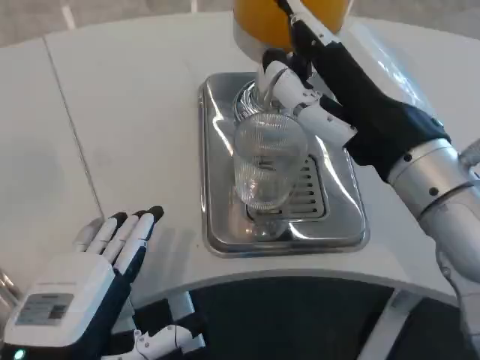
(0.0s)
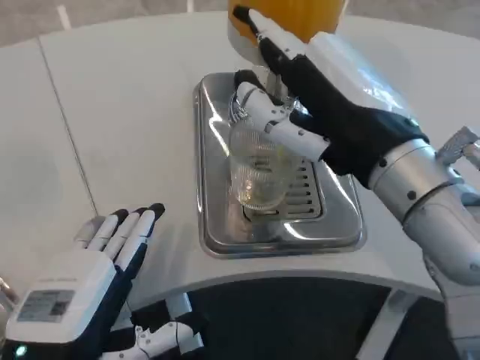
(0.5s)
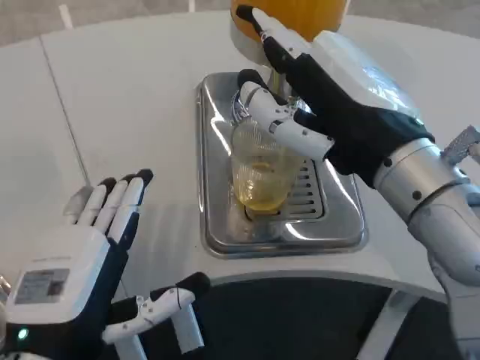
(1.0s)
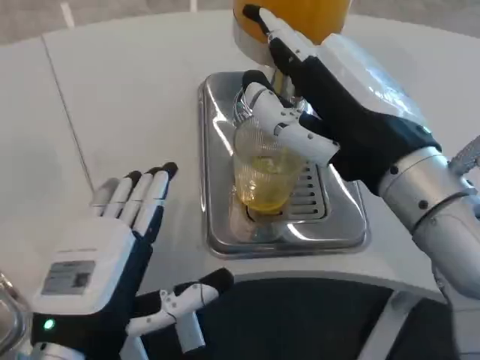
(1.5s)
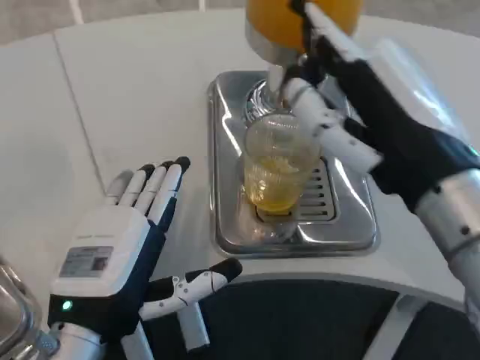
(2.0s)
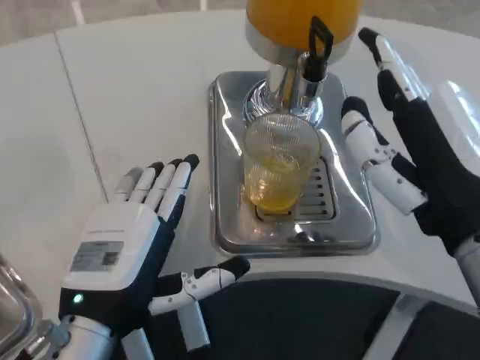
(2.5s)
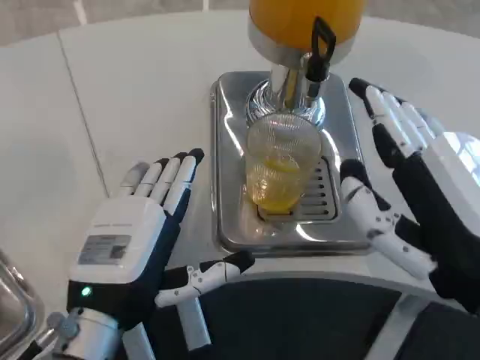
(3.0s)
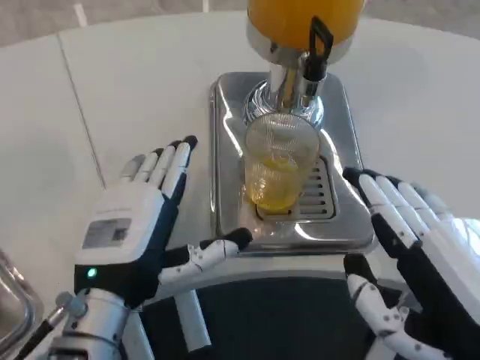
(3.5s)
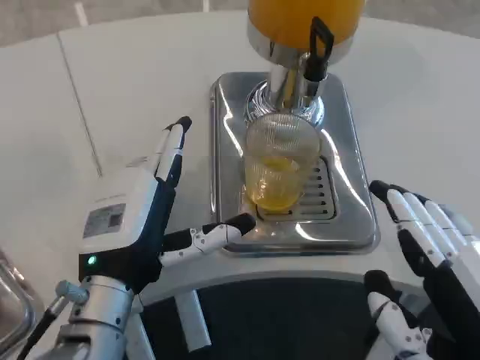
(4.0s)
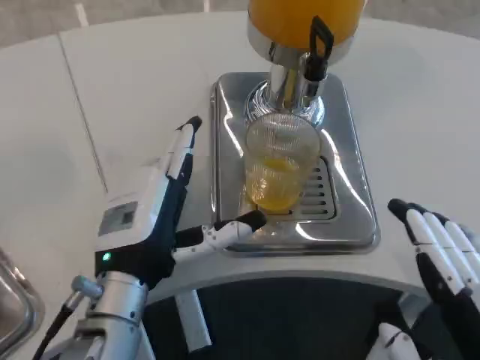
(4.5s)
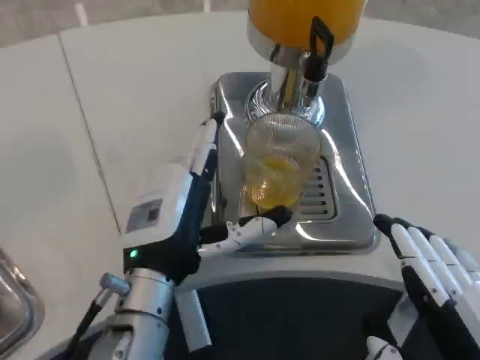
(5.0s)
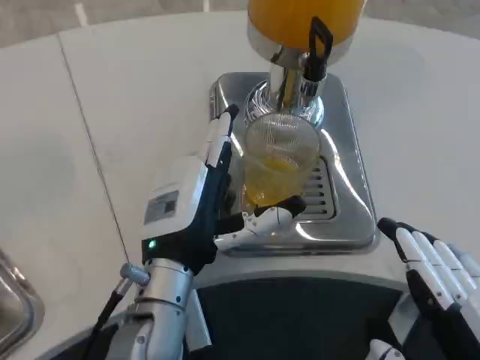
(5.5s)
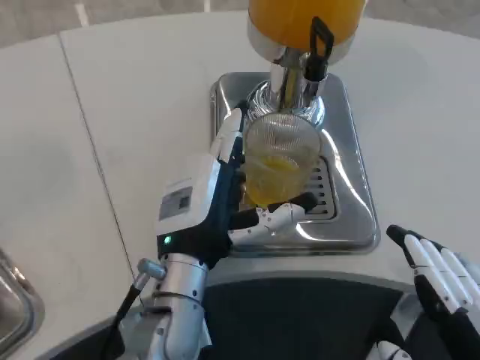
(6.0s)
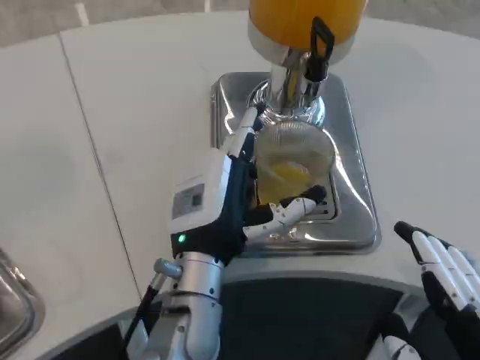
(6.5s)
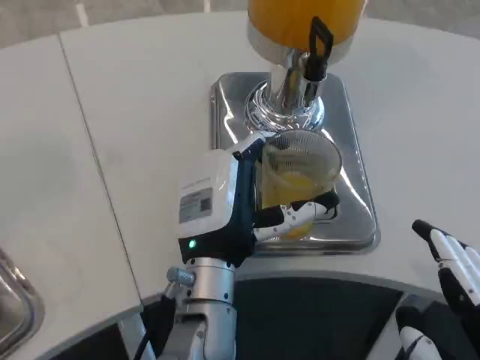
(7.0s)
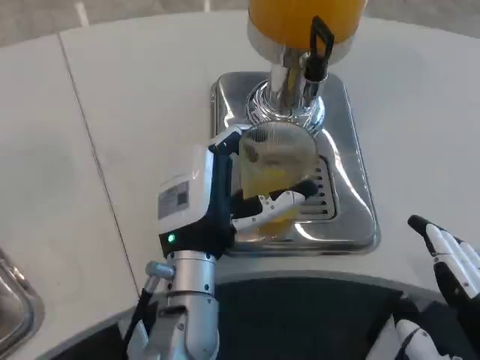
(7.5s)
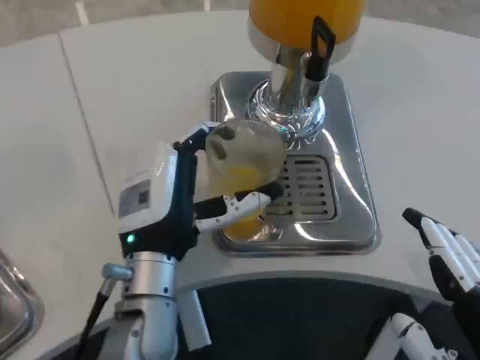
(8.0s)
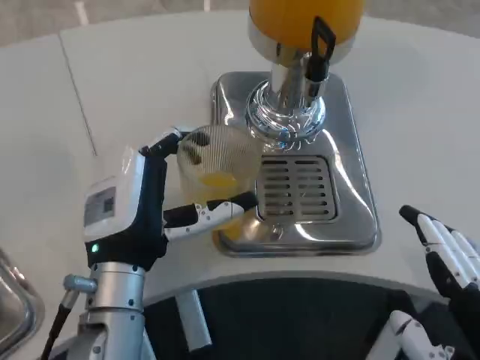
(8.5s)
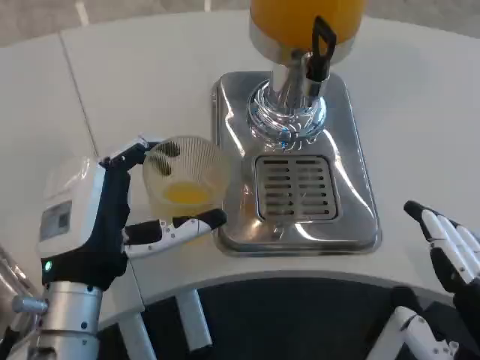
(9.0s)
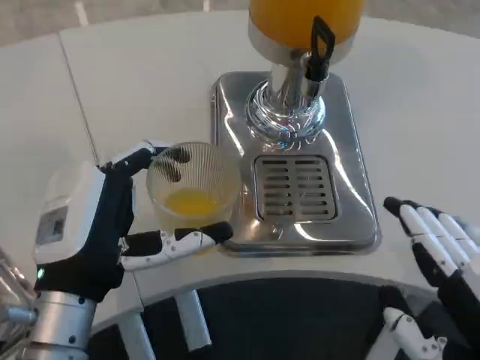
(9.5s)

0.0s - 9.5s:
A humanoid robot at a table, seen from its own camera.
Task of the whole recording: Grasp the cup under the faucet to collect the drink, then remove the cup.
0.0s - 2.0s: The left hand changes place by approximately 5 cm.
2.0s - 4.0s: The left hand changes place by some 5 cm. The right hand goes some 15 cm backward and downward.
4.0s - 5.5s: The left hand travels to the right by roughly 5 cm.
5.5s - 7.5s: There are only small adjustments of the hands.
7.5s - 9.5s: The left hand heads to the left and backward, covering roughly 10 cm.

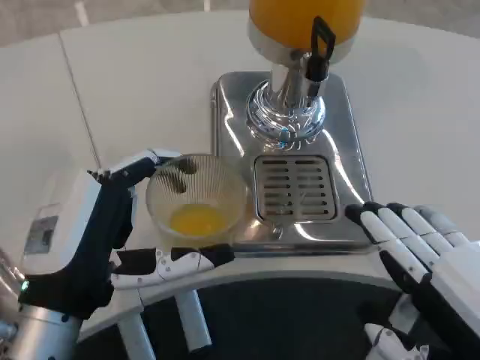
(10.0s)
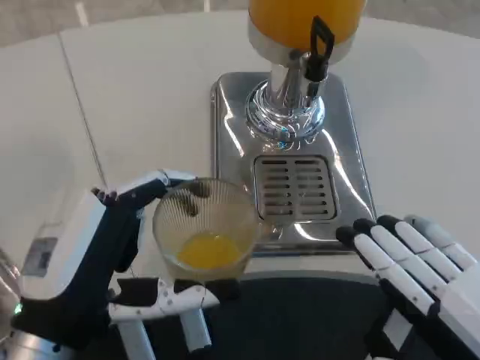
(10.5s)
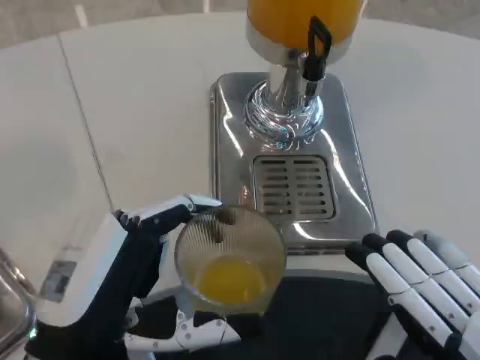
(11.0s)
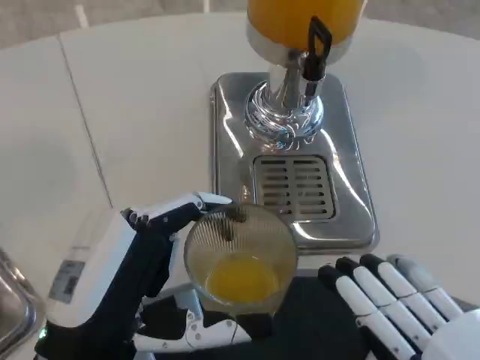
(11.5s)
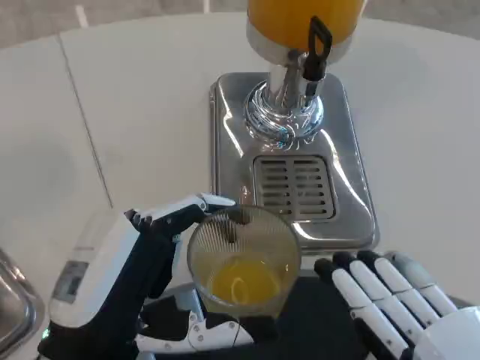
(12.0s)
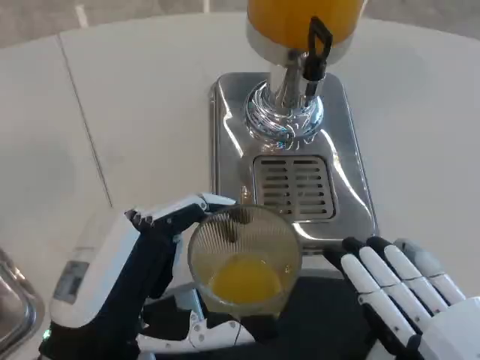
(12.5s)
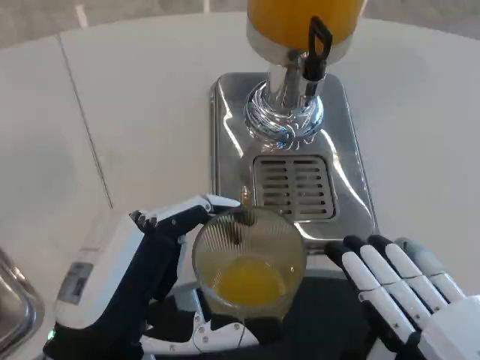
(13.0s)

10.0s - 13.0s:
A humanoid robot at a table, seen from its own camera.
Task of the whole recording: Grasp the cup under the faucet to collect the drink, then remove the cup.
11.5s - 13.0s: The hands move only a little.

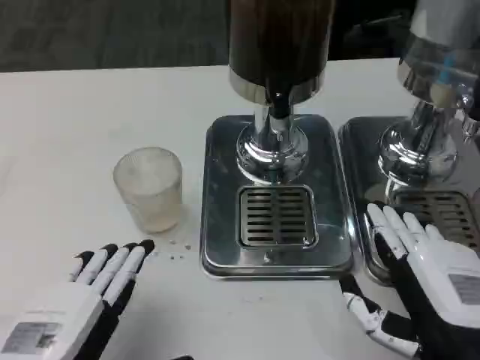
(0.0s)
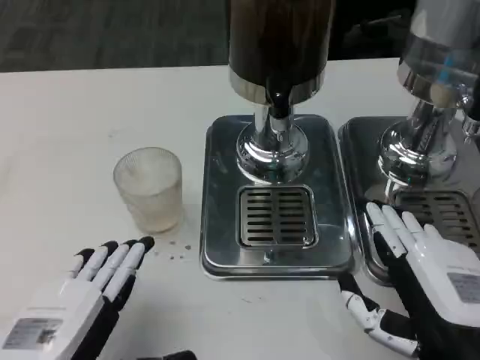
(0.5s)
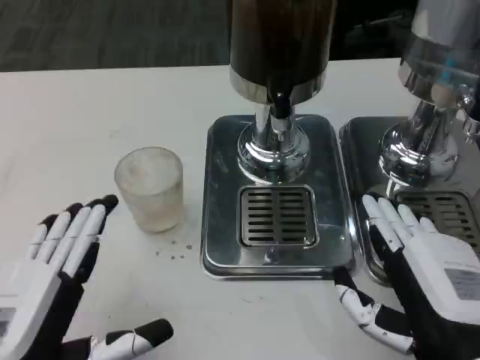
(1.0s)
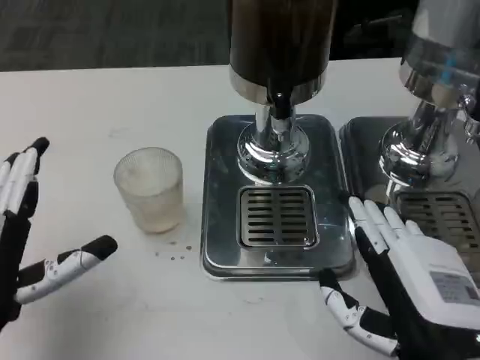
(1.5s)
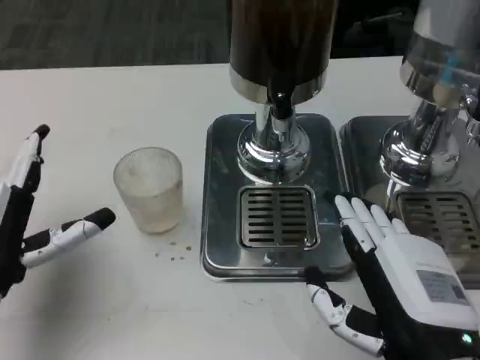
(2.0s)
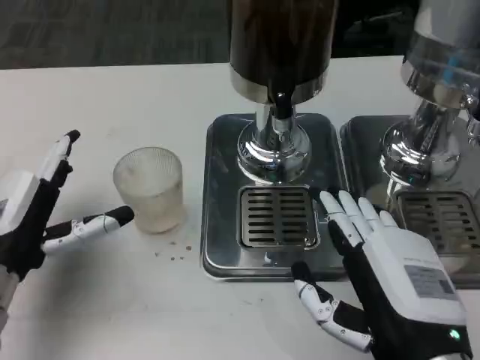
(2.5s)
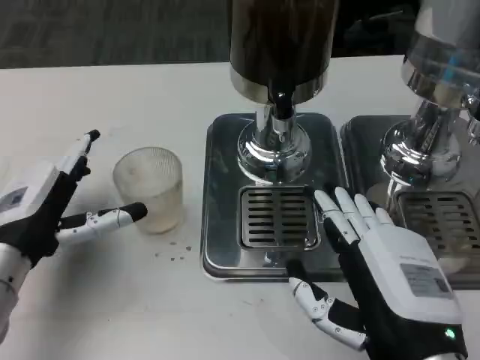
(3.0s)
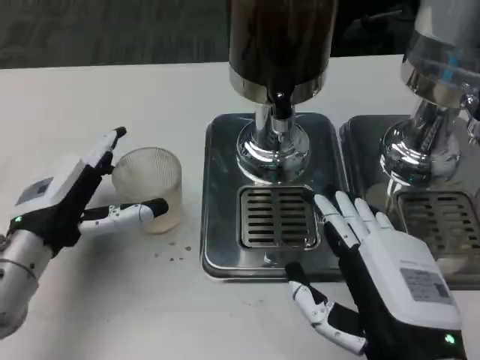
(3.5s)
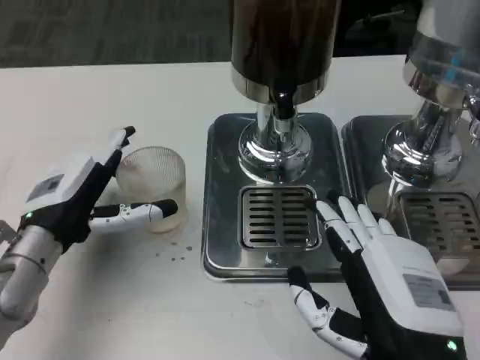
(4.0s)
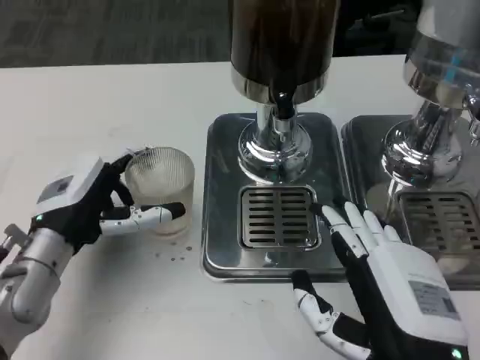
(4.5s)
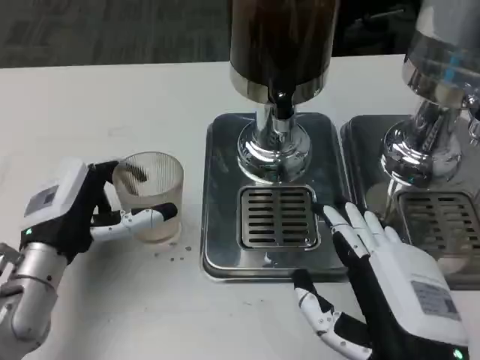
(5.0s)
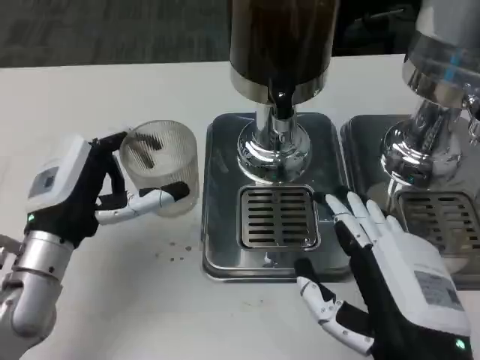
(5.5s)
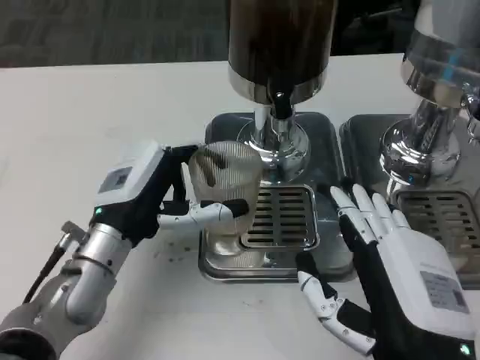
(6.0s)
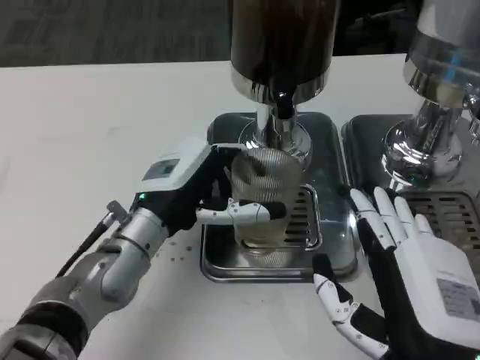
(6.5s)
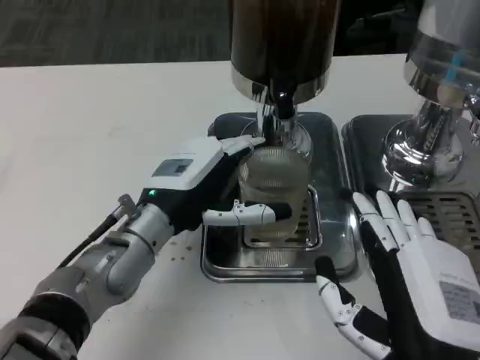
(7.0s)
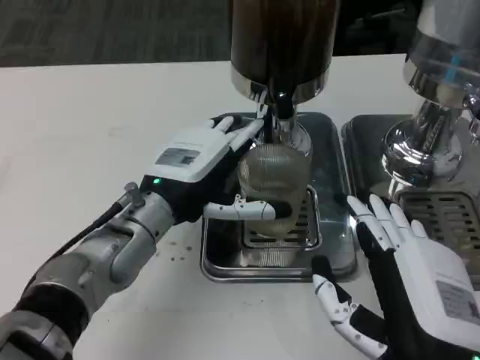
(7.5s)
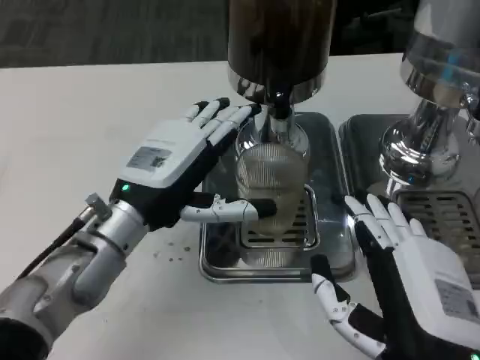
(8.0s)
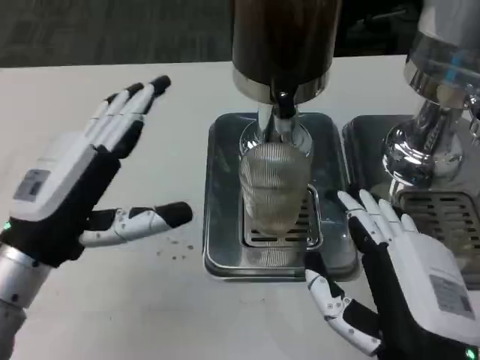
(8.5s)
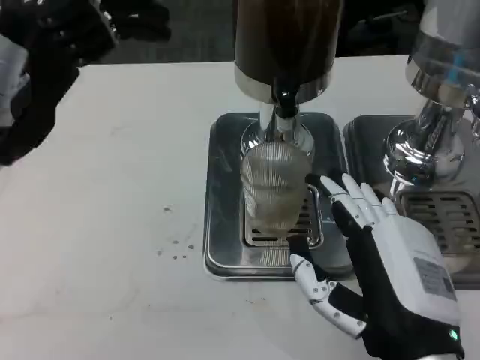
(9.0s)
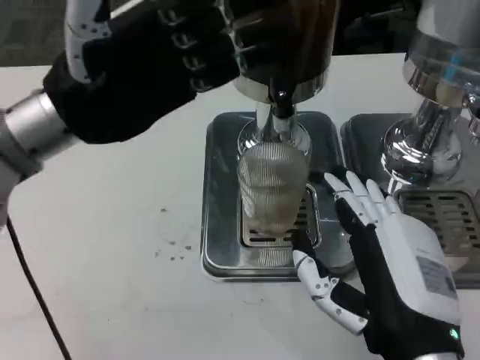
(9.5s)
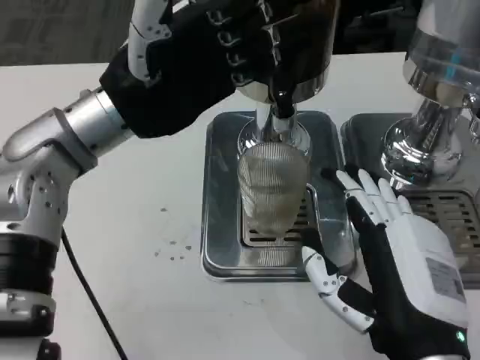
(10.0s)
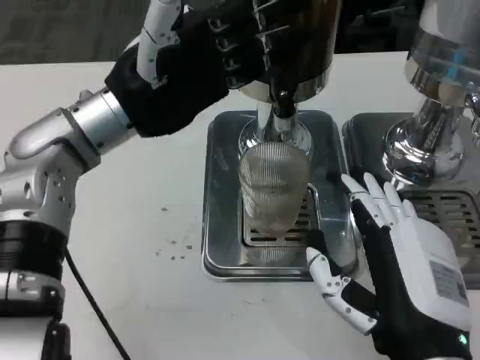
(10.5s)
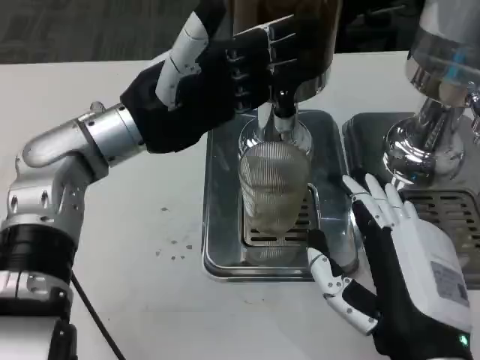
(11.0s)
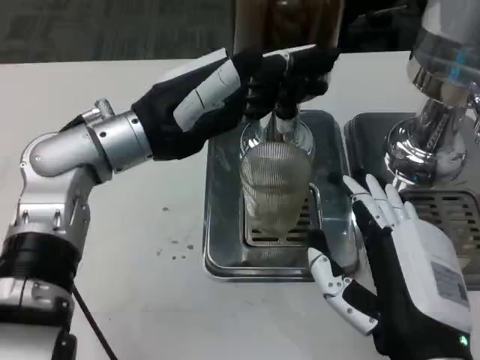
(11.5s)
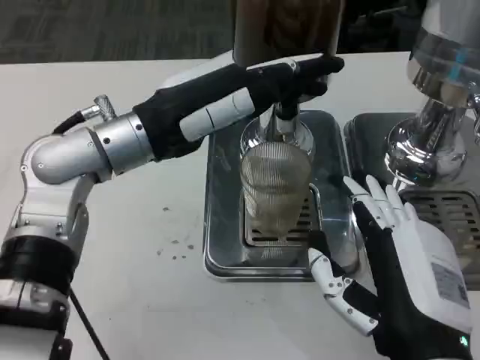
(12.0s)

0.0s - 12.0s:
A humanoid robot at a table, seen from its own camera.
Task of the whole recording: Grasp the cup under the faucet to collect the drink, then remove the cup.
0.0s - 2.0s: The left hand goes about 15 cm forward and to the left.
2.0s - 4.0s: The left hand is displaced forward by about 5 cm.
4.0s - 6.0s: The left hand shifts roughly 5 cm to the right.
8.0s - 10.0s: The left hand is displaced upward and forward by approximately 10 cm.

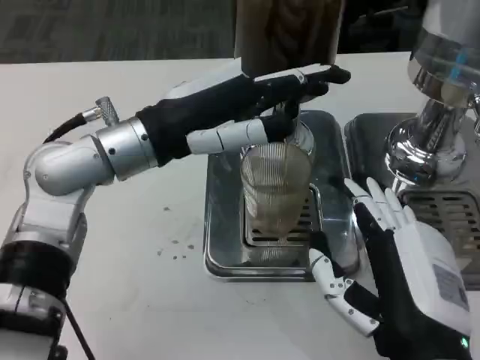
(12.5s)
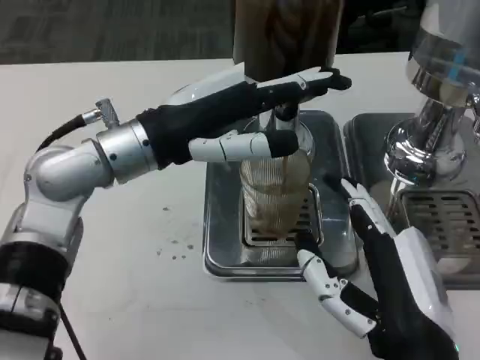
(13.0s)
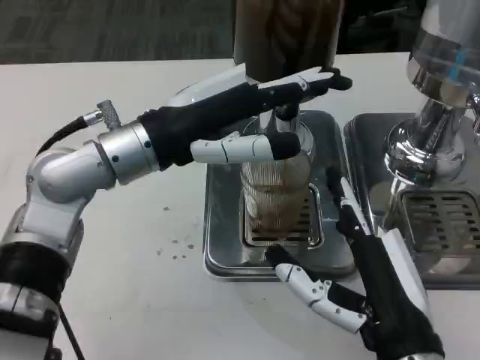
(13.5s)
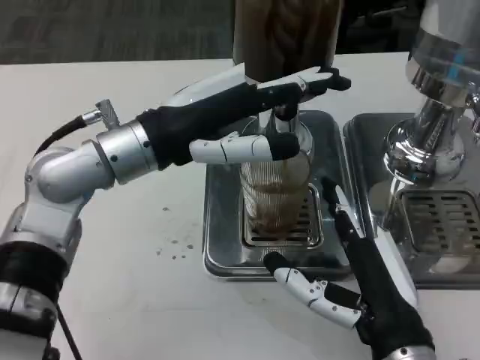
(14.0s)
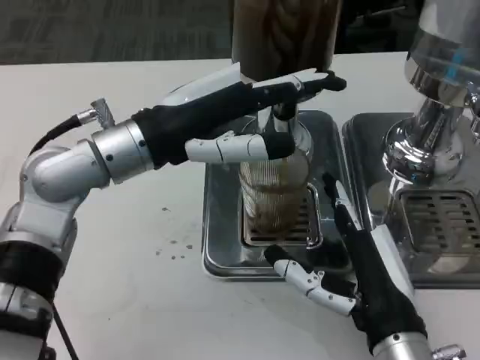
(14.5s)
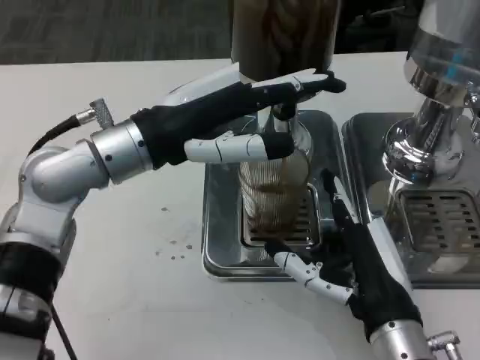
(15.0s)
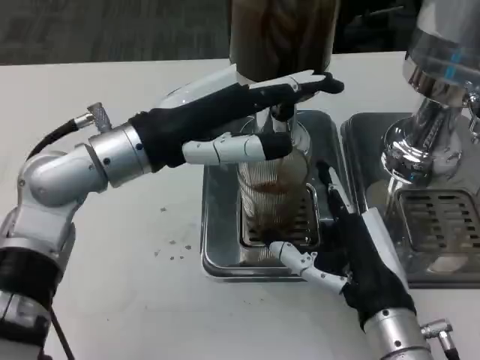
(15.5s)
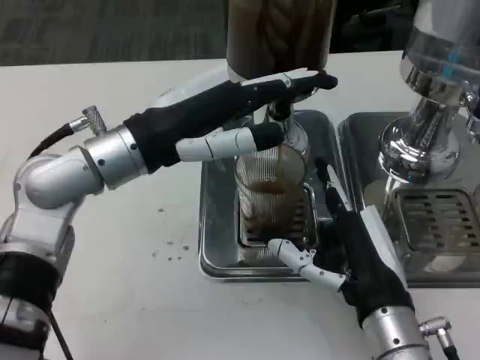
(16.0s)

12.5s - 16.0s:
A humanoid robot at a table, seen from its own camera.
Task of the whole recording: Grasp the cup under the faucet to collect the drink, then remove the cup.
12.5s - 14.5s: The right hand ends up about 5 cm from where it was.
